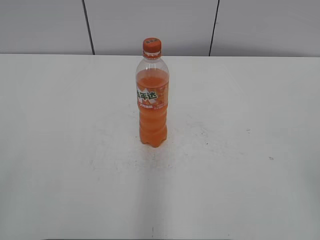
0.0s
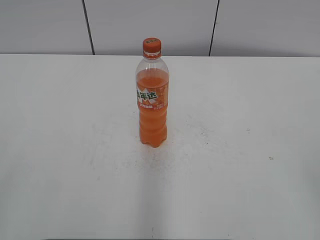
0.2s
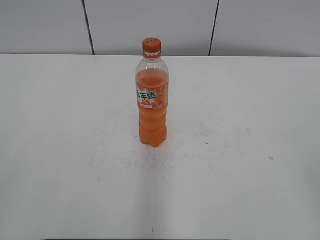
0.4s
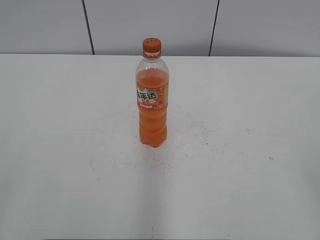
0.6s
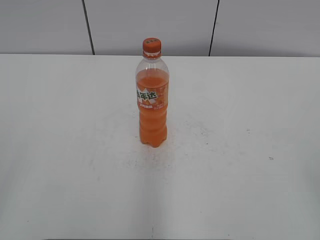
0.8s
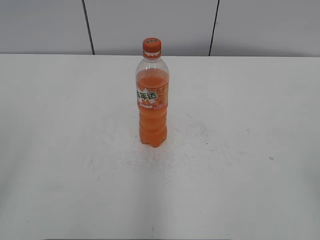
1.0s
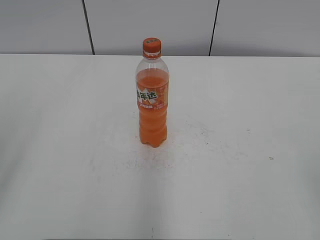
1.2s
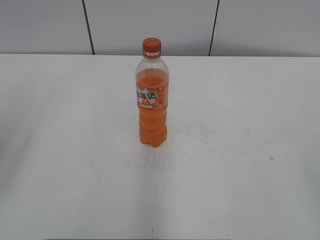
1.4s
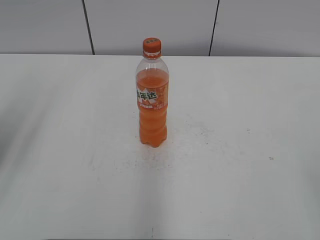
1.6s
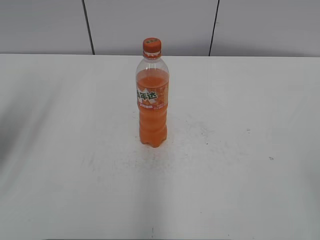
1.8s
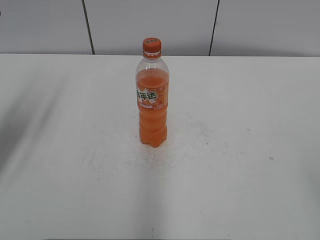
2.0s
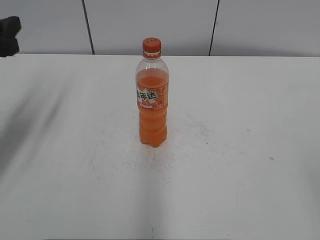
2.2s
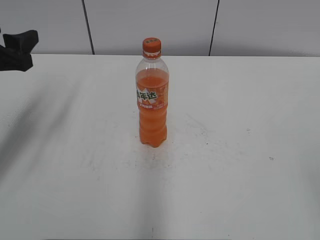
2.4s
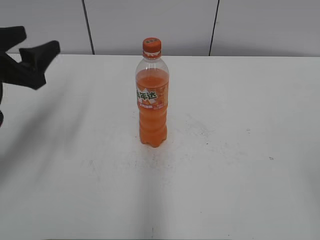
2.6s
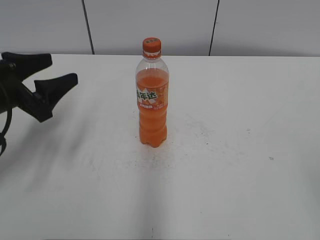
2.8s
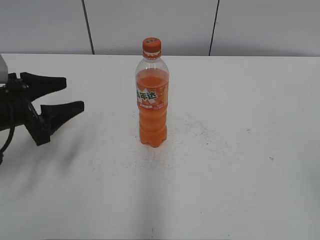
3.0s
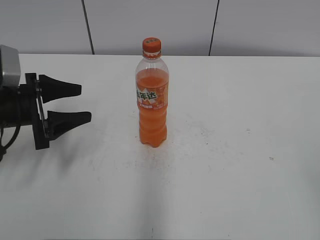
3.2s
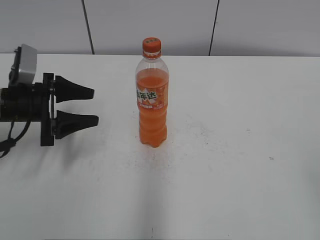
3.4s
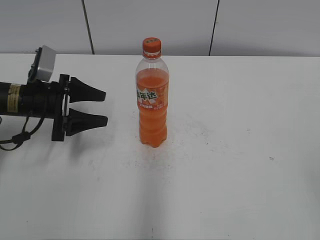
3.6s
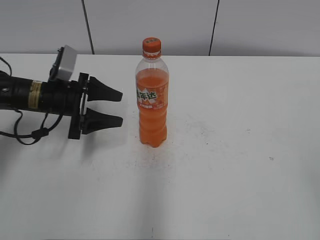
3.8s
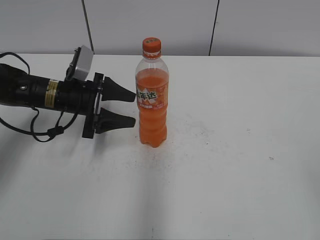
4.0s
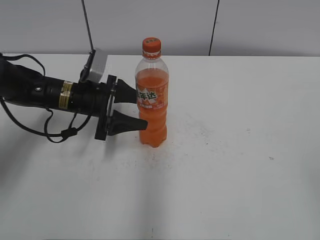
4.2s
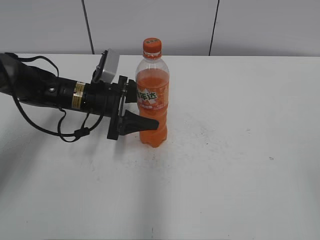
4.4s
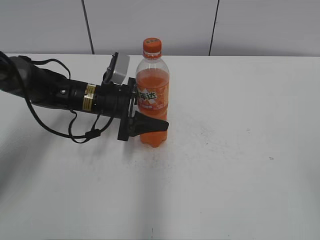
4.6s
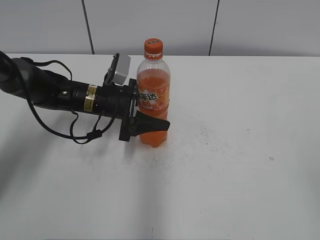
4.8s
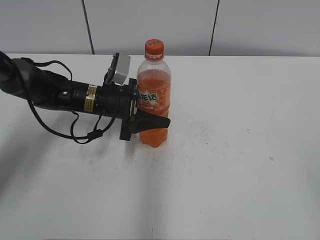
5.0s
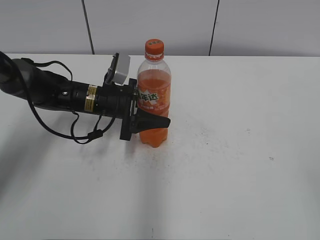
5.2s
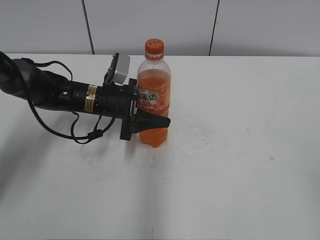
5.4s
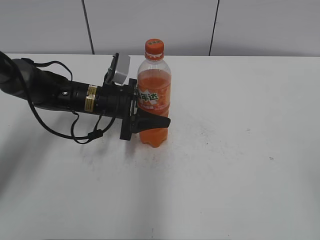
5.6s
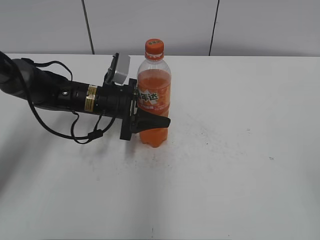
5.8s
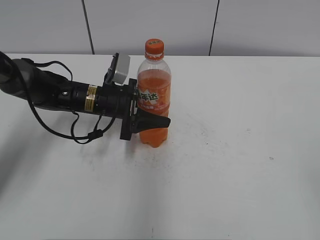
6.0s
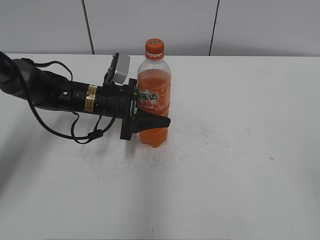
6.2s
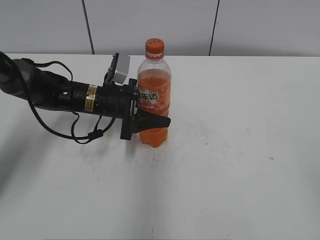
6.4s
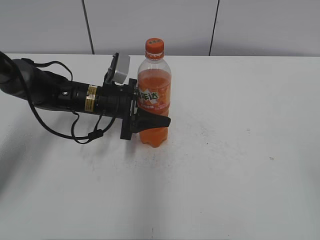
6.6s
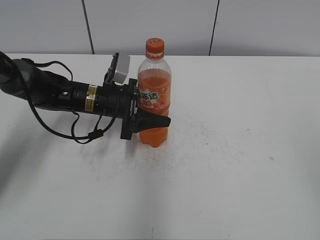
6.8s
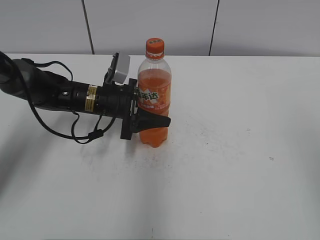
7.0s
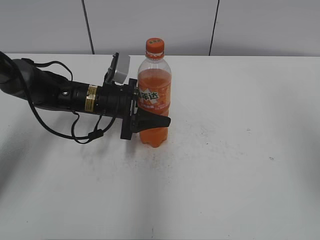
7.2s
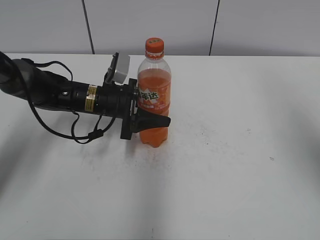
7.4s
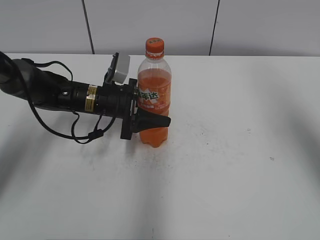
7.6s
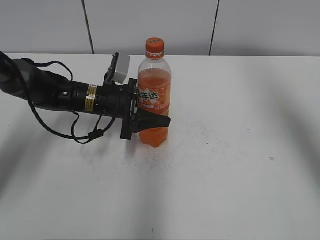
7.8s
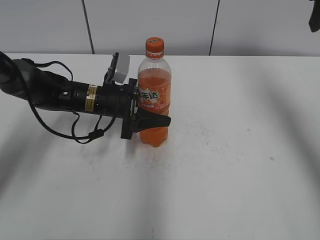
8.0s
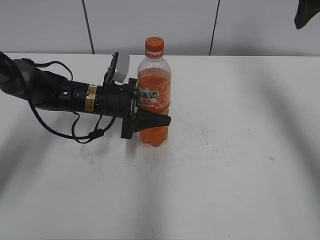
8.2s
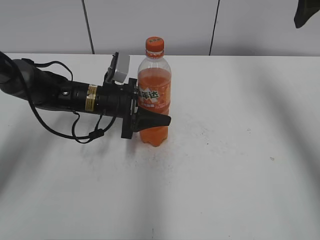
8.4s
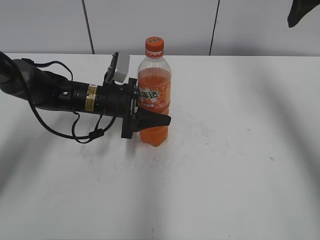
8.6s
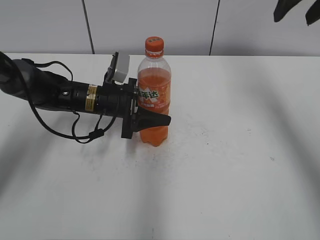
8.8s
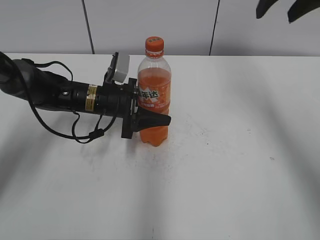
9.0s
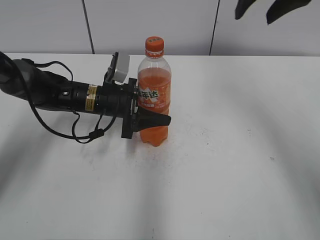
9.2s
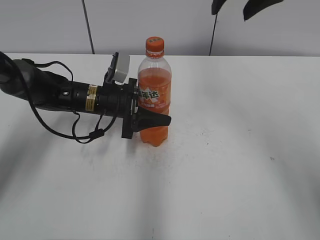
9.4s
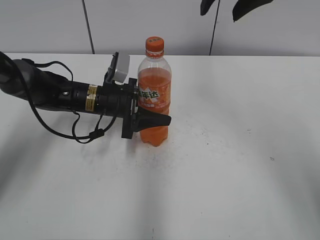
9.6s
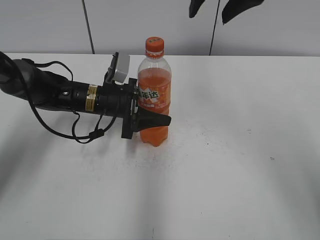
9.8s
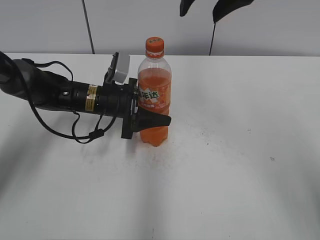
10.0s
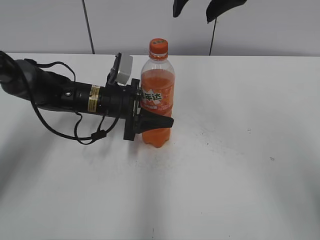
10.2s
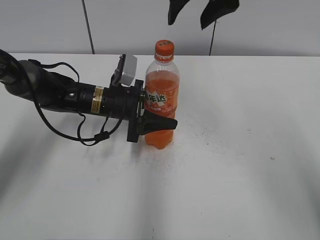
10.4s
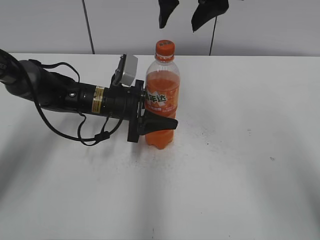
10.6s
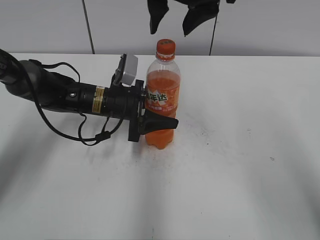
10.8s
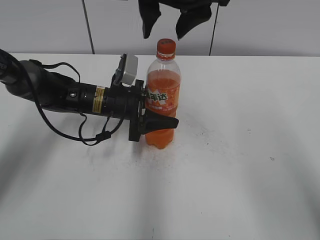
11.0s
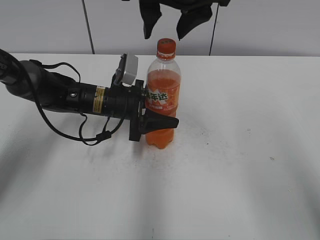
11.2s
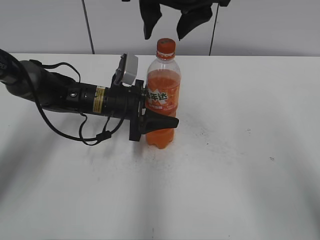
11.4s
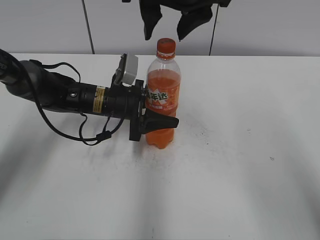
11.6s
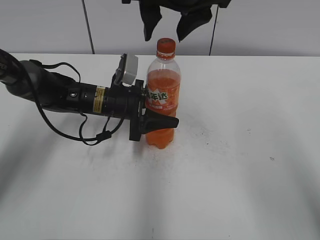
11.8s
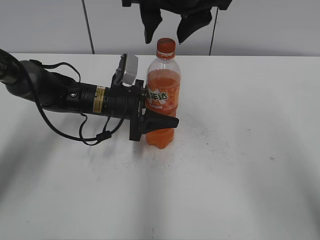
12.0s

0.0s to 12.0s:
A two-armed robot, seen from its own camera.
Step, 0.0s to 5.2s: Grab the Mirinda with the left hand.
1.6s to 3.0s: The left gripper travels downward and forward by approximately 20 cm.
3.0s to 4.4s: The left gripper is displaced to the right, forward and downward by some 15 cm.
4.4s to 6.0s: The left gripper closes.
6.0s to 7.6s: The right gripper moves forward and upward, approximately 25 cm.
7.6s to 9.0s: The right gripper is displaced forward and to the left by about 15 cm.
9.0s to 10.4s: The right gripper travels to the left by approximately 15 cm.
10.4s to 12.0s: The grippers make only small movements.

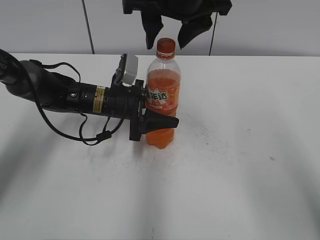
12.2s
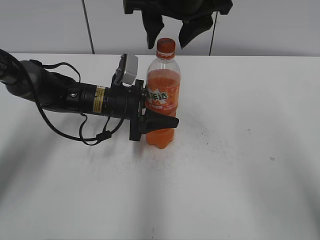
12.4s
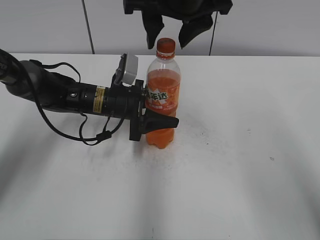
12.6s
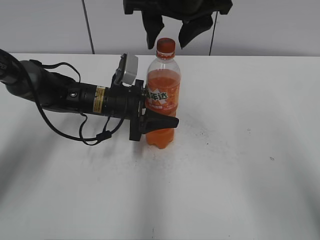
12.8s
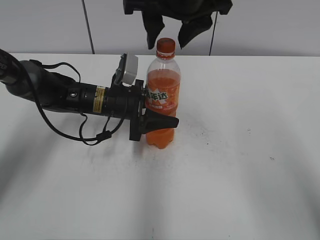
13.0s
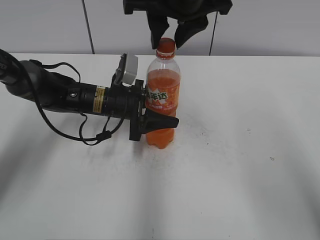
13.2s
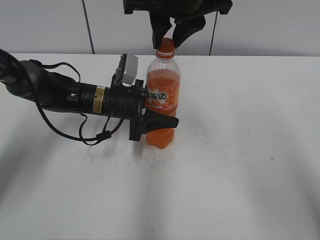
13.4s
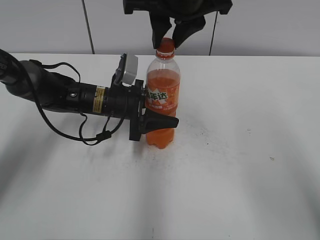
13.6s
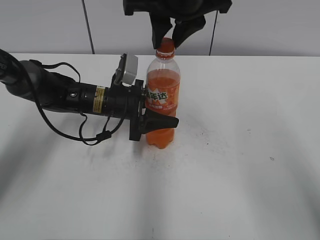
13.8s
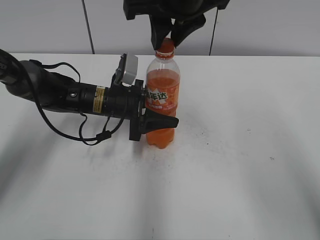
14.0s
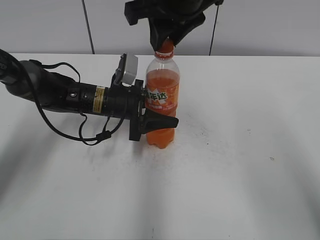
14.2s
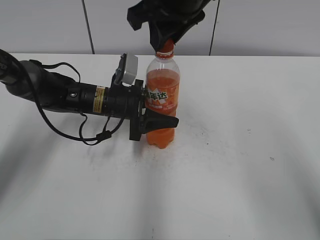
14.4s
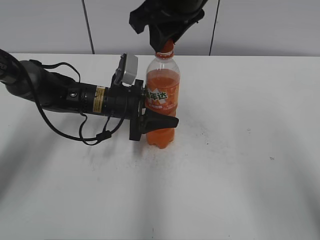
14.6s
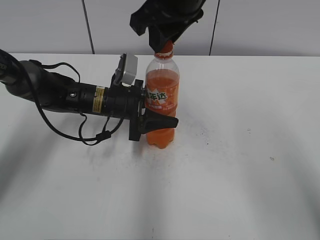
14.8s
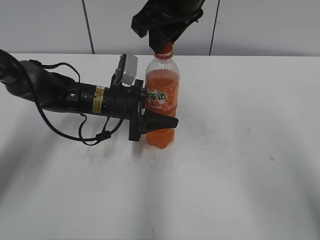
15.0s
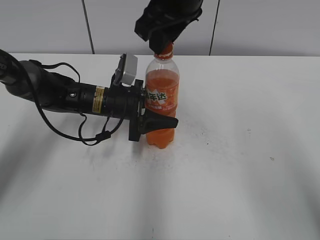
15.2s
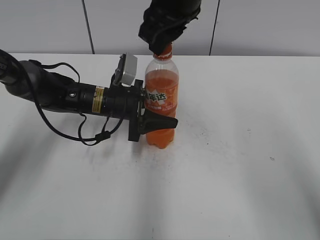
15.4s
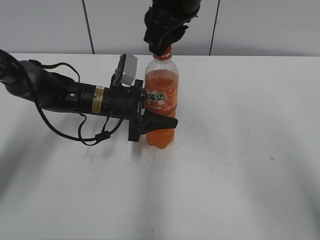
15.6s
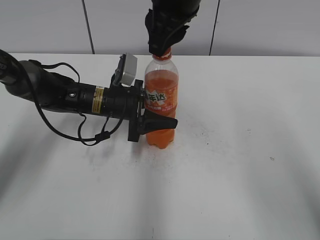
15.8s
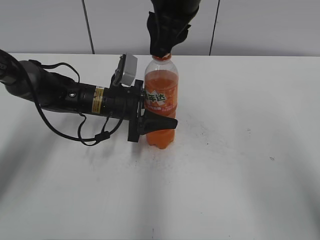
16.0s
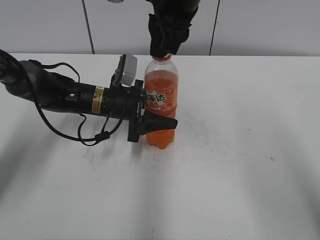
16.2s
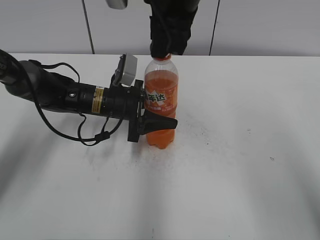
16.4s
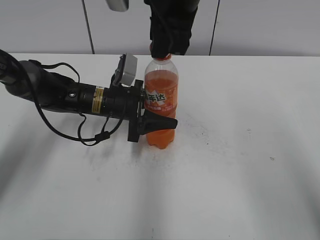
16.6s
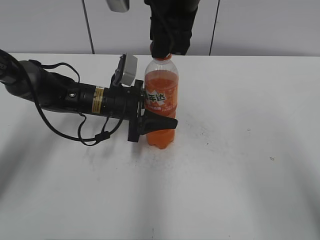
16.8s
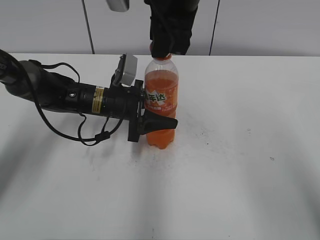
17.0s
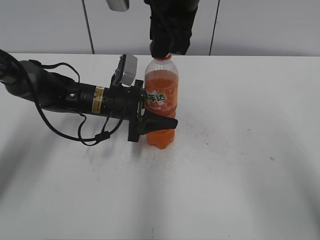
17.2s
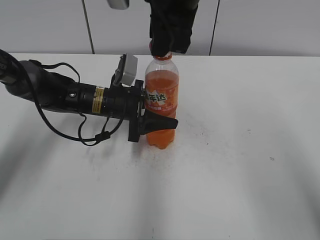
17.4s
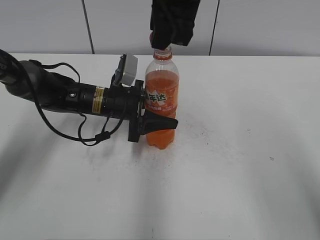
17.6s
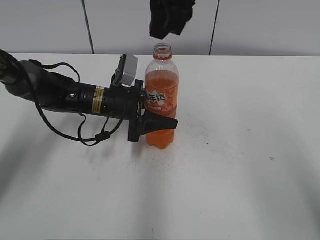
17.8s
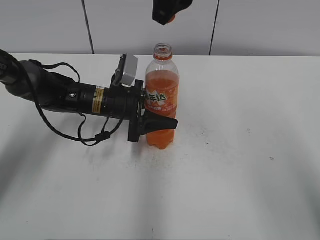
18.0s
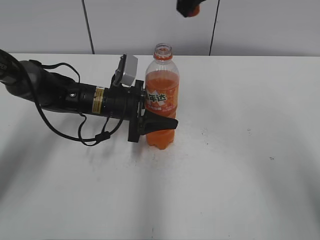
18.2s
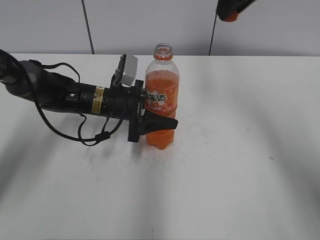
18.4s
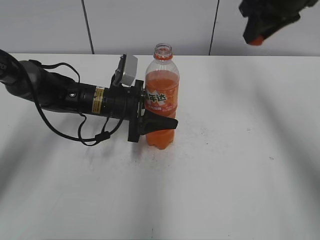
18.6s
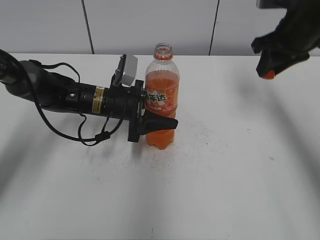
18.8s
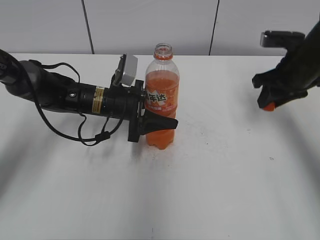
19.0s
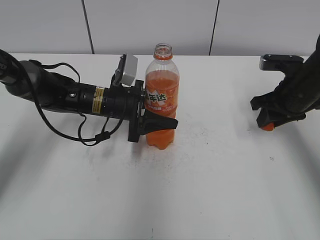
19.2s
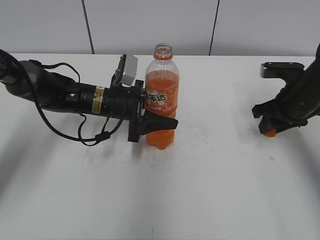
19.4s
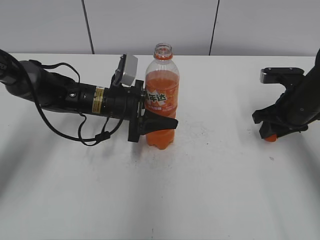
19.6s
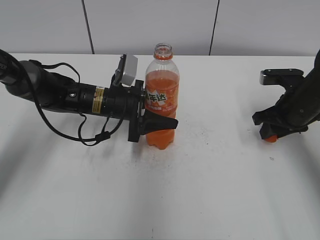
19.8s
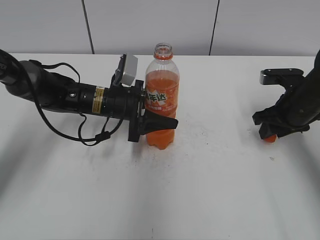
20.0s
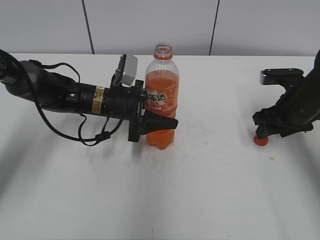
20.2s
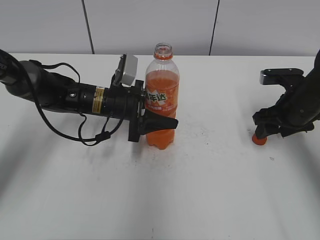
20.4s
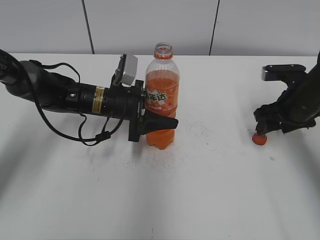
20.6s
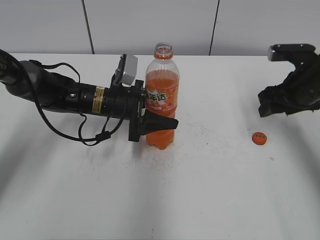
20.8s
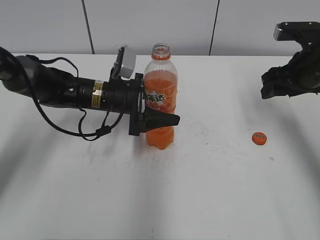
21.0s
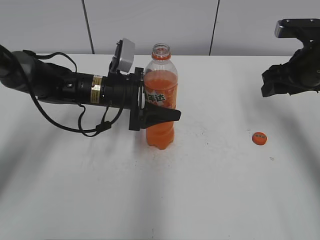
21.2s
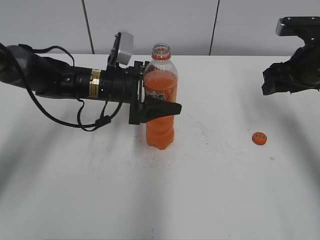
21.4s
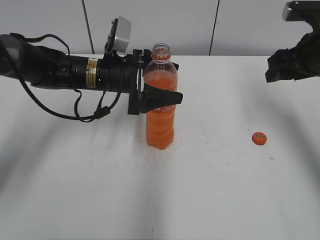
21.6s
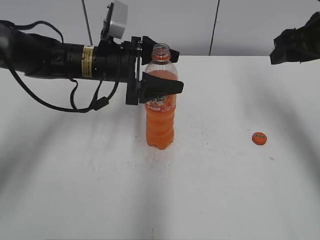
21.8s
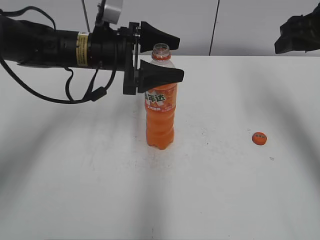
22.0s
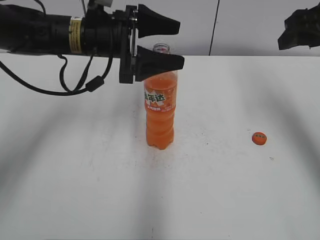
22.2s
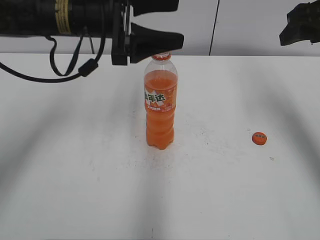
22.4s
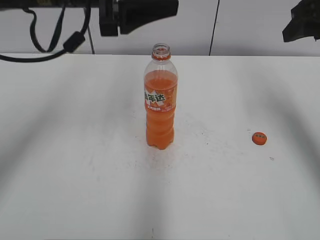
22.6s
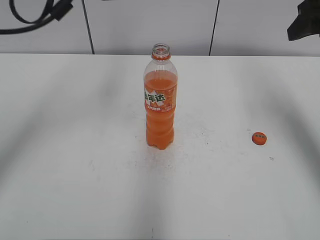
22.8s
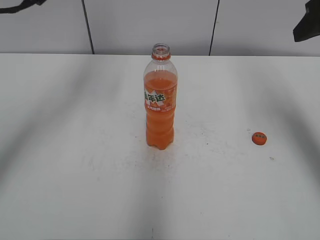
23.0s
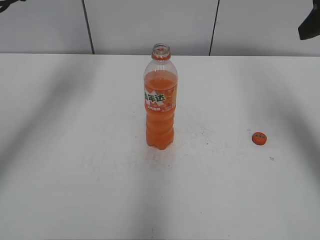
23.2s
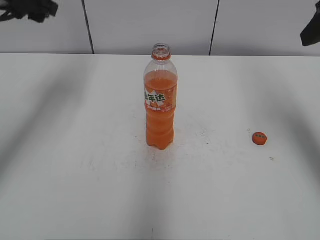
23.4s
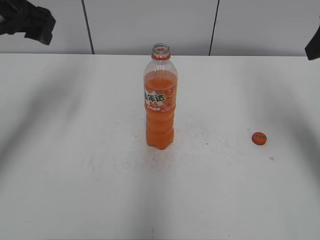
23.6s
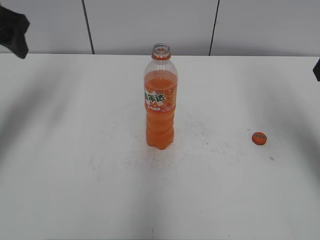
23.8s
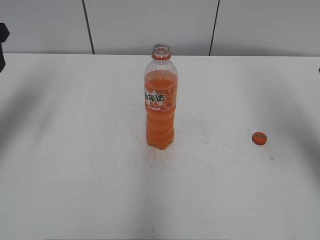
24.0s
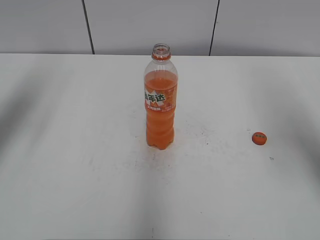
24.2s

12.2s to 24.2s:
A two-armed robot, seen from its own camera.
Step, 12.2s to 17.4s: Fix the Mirinda on the left.
Step, 17.8s to 20.2s: Place the bottle cap on the right.
12.2s to 13.8s: The right gripper closes up.
16.6s to 18.2s: The right gripper changes place by about 5 cm.
18.2s to 19.8s: The right gripper is displaced downward and to the right by roughly 30 cm.
19.8s to 21.2s: The left gripper opens. The right gripper is displaced upward by some 10 cm, and opens its fingers.
21.2s to 22.6s: The left gripper travels upward by some 20 cm. The right gripper heads upward, covering some 10 cm.
22.6s to 24.2s: The left gripper goes approximately 20 cm to the left, and closes up; the right gripper moves backward, approximately 10 cm.
